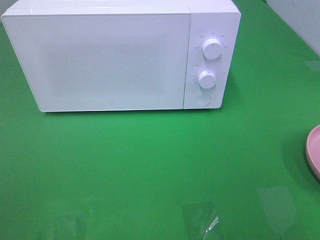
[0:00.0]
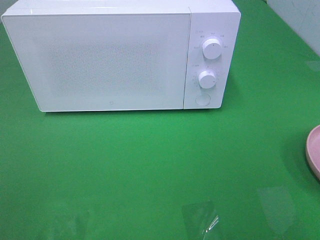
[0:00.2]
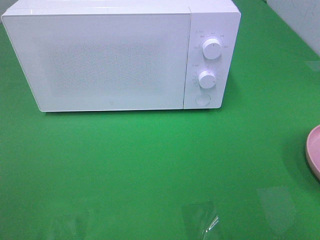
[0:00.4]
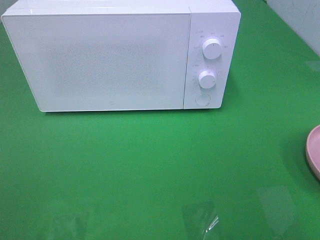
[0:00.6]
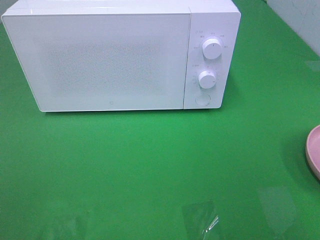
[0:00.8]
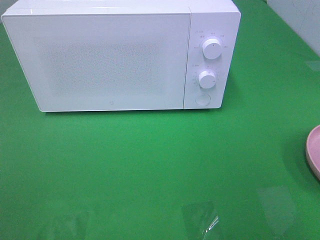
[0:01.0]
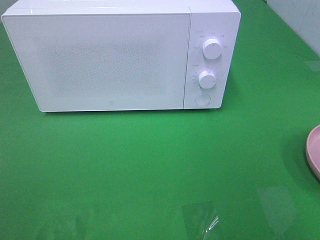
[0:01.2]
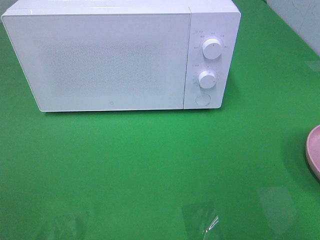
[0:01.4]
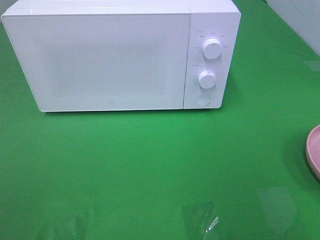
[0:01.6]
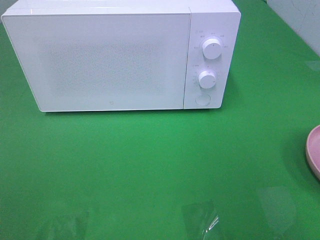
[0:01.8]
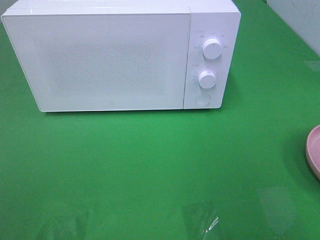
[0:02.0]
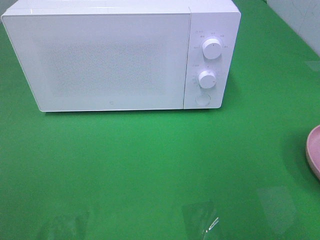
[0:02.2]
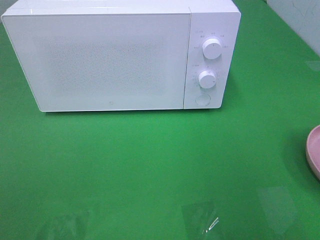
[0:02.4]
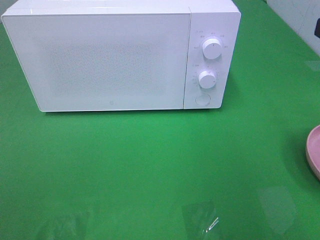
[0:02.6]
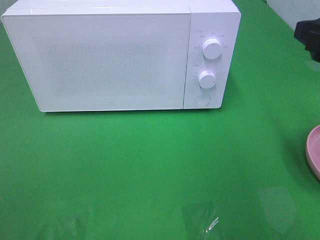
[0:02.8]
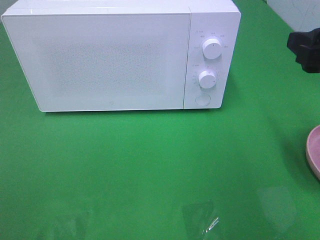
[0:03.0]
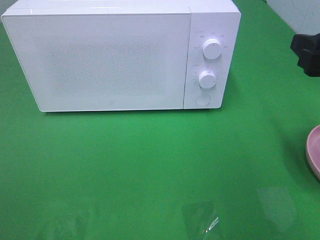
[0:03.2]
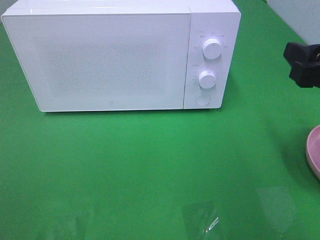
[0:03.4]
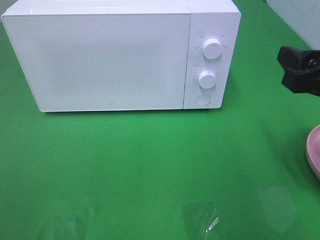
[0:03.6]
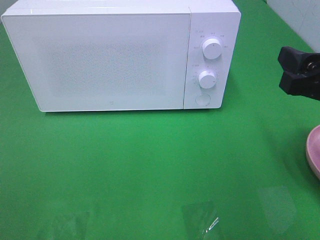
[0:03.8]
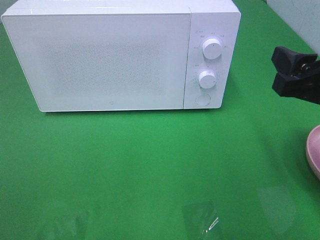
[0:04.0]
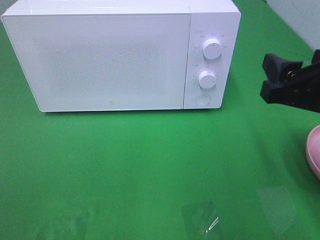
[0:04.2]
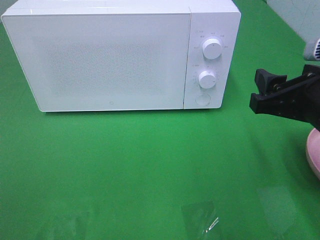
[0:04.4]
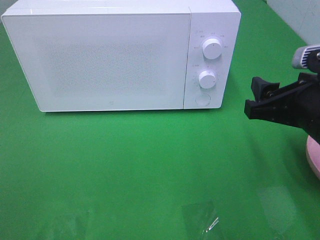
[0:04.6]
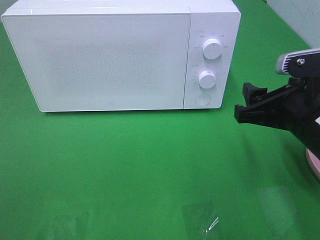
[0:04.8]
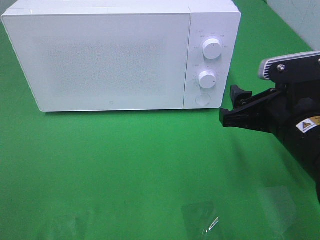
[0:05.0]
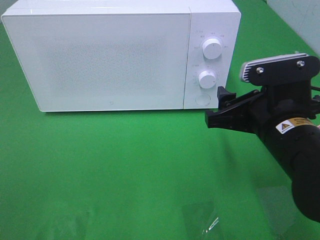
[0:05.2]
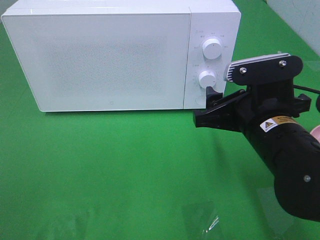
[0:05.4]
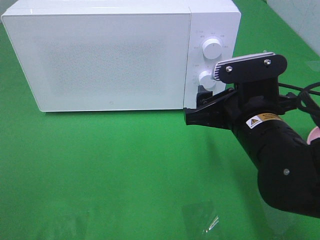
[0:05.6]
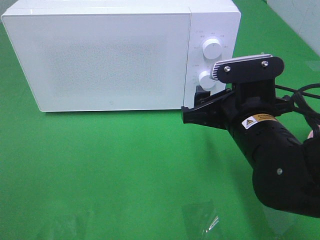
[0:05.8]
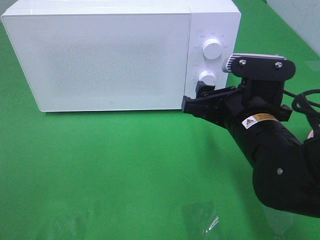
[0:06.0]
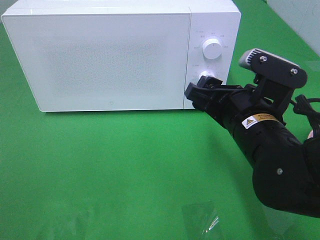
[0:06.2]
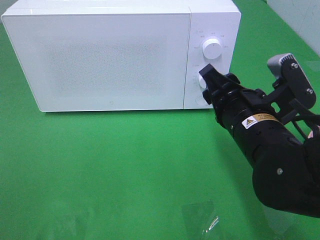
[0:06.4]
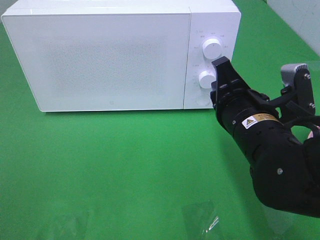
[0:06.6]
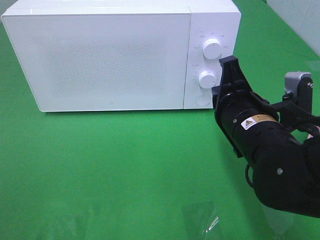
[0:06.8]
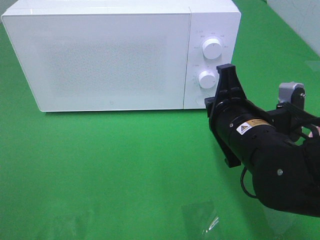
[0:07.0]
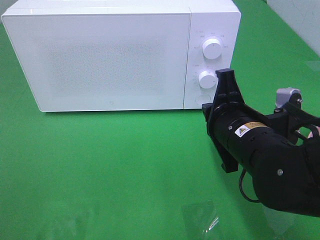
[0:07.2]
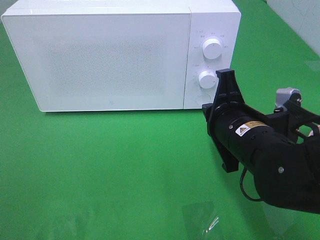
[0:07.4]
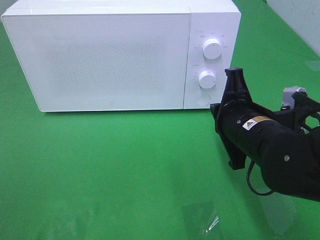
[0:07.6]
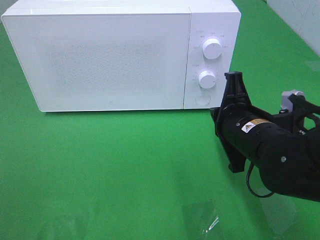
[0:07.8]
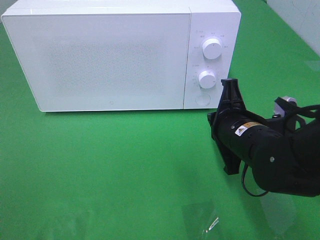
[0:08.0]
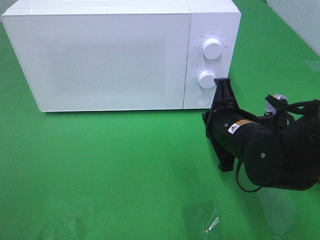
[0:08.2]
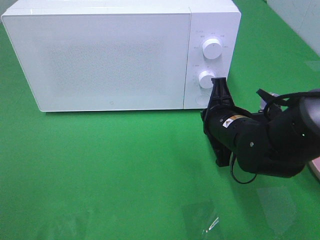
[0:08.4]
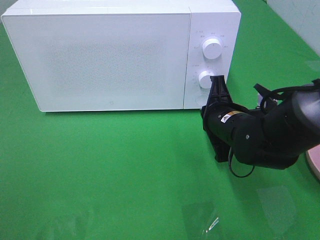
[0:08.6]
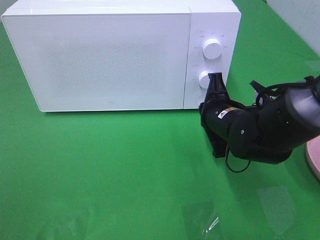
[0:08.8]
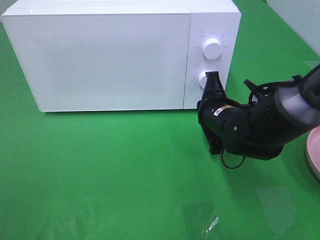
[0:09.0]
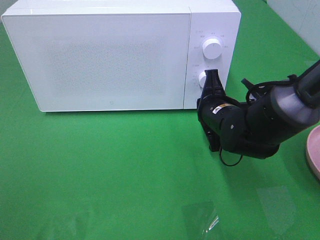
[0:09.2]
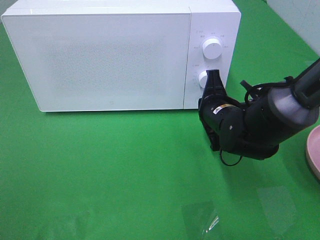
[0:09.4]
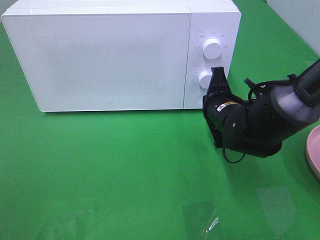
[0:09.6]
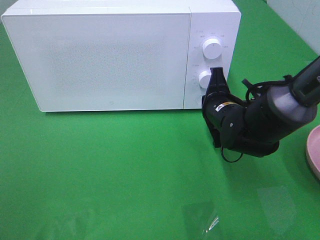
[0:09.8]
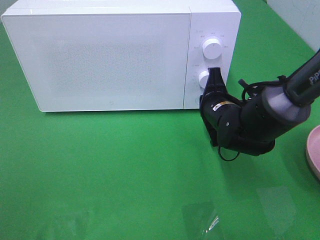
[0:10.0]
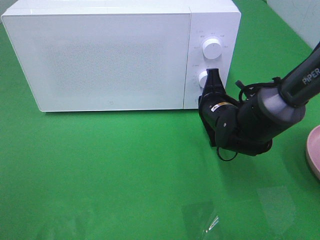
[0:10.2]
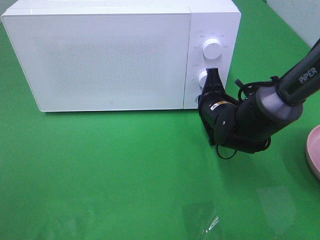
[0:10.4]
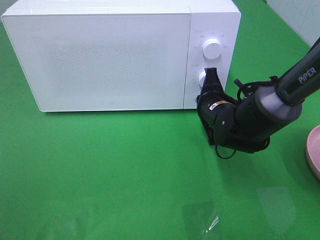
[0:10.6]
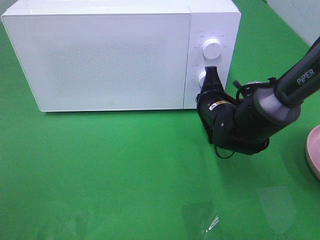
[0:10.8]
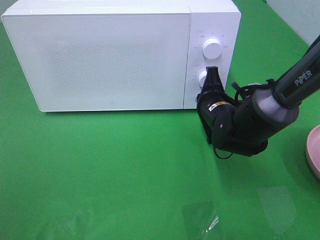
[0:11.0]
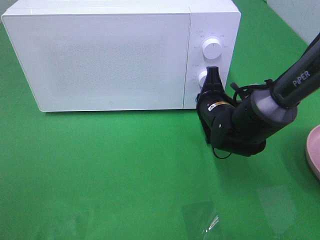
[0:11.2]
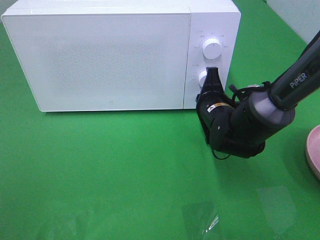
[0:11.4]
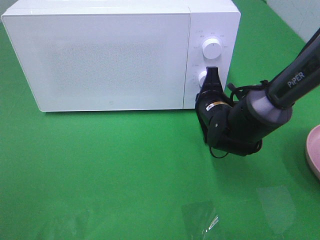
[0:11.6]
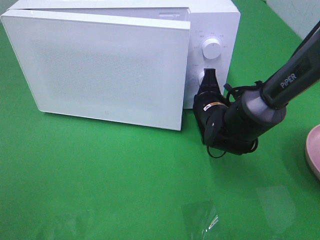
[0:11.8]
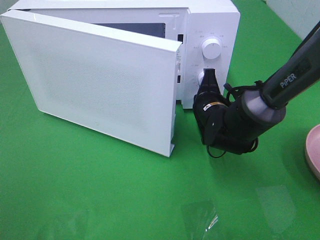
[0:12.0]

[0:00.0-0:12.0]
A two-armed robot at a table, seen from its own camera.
Task of the whole recording: Heat the burger.
0:01.6 to 0:03.0: The right gripper moves forward and downward, approximately 15 cm.
0:03.0 to 0:04.4: The right gripper shifts roughly 5 cm downward.
0:04.4 to 0:06.0: The right gripper shifts approximately 10 cm to the left.
0:06.0 to 0:07.6: The right gripper closes.
0:07.6 to 0:09.0: The right gripper heads forward and downward, covering roughly 10 cm.
0:09.0 to 0:12.0: The grippers make only small movements.

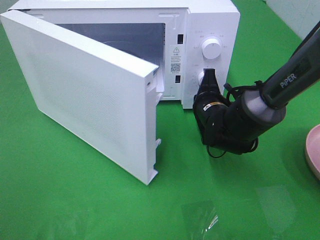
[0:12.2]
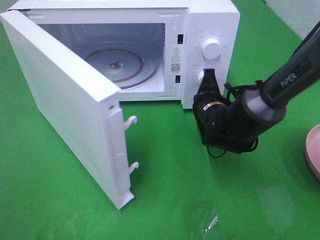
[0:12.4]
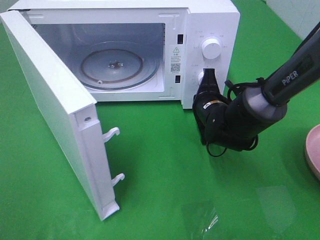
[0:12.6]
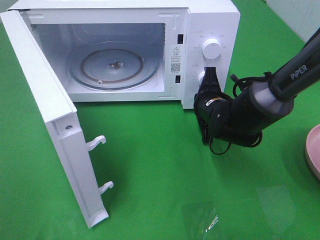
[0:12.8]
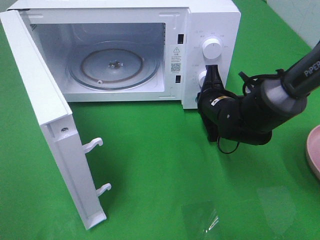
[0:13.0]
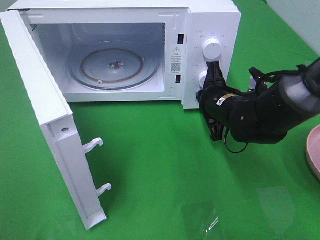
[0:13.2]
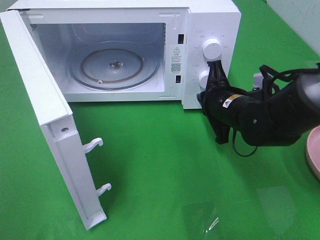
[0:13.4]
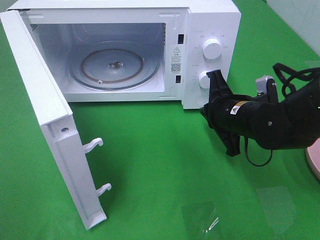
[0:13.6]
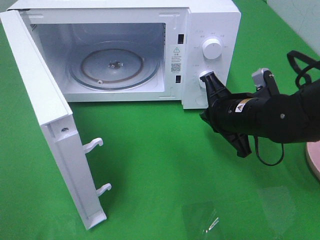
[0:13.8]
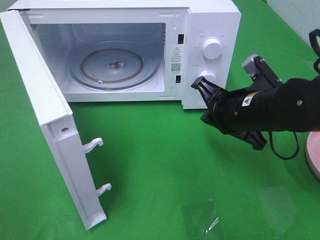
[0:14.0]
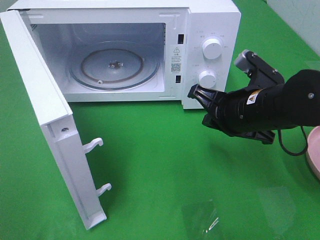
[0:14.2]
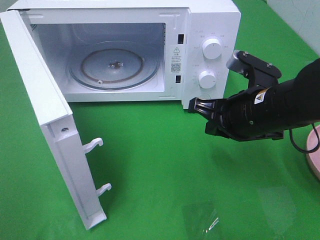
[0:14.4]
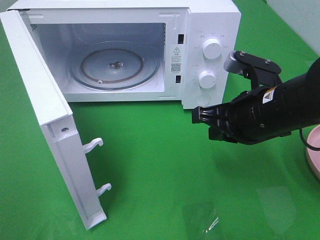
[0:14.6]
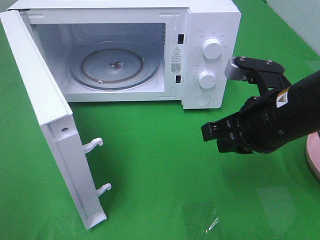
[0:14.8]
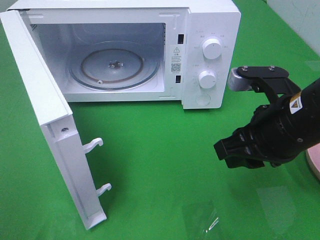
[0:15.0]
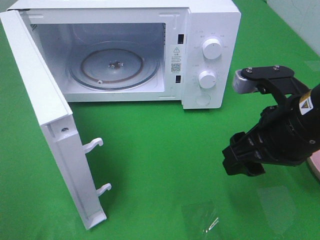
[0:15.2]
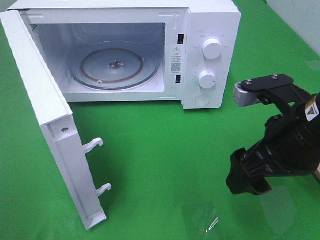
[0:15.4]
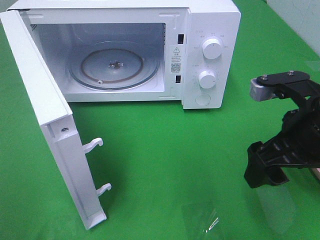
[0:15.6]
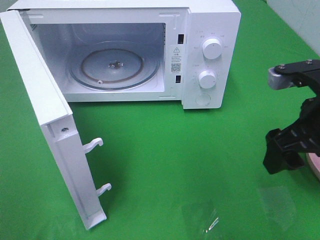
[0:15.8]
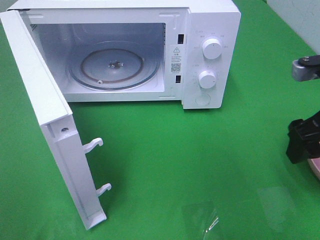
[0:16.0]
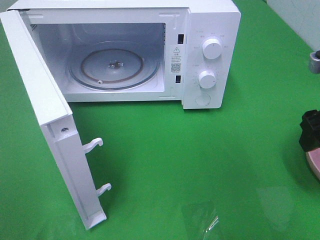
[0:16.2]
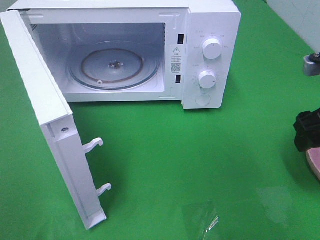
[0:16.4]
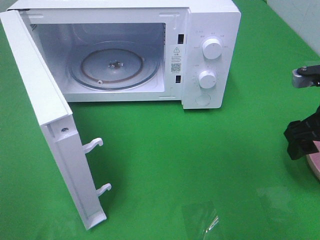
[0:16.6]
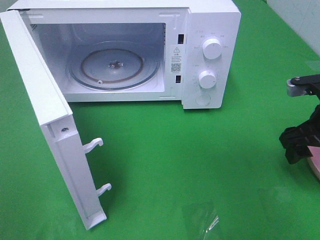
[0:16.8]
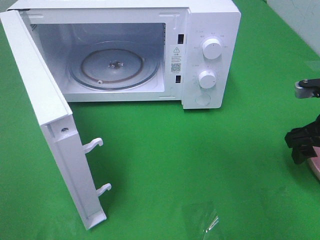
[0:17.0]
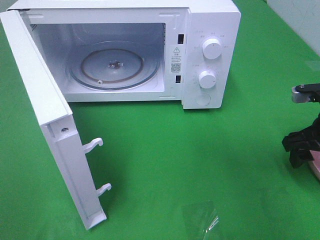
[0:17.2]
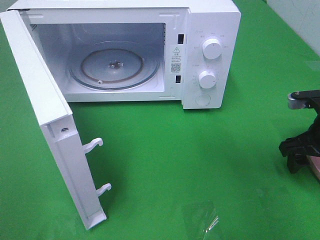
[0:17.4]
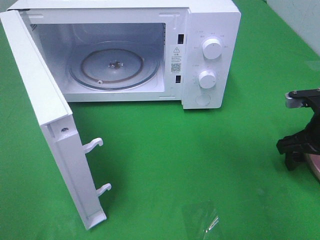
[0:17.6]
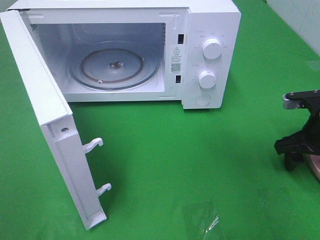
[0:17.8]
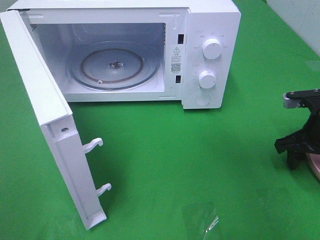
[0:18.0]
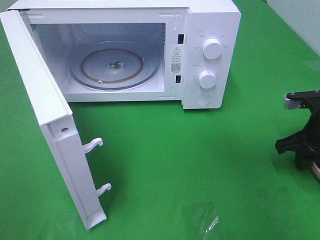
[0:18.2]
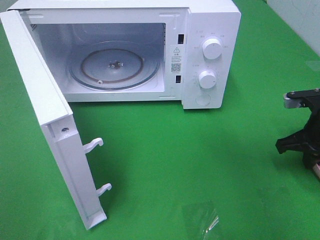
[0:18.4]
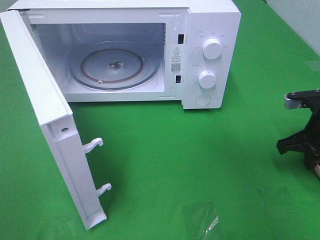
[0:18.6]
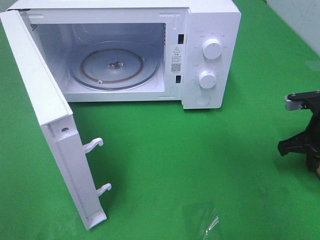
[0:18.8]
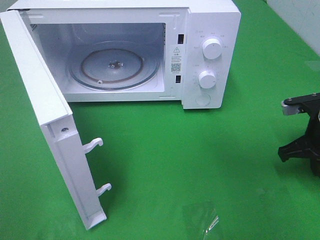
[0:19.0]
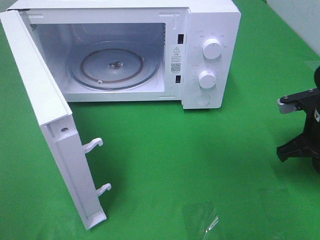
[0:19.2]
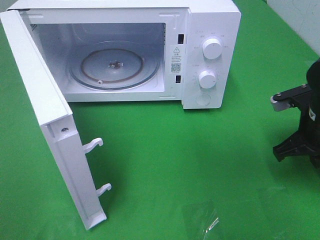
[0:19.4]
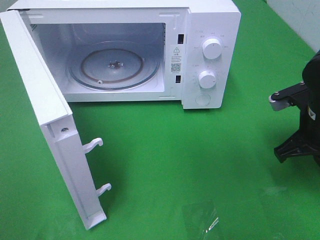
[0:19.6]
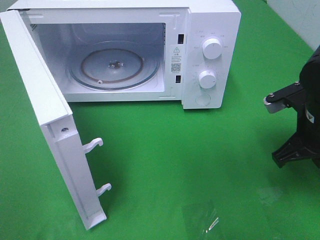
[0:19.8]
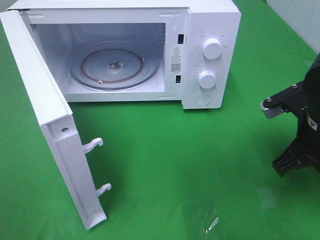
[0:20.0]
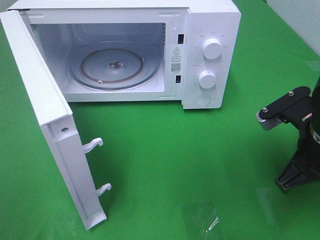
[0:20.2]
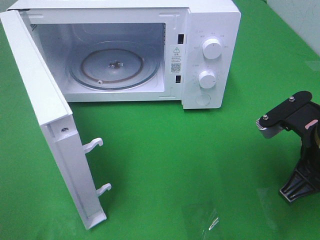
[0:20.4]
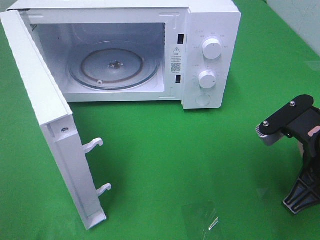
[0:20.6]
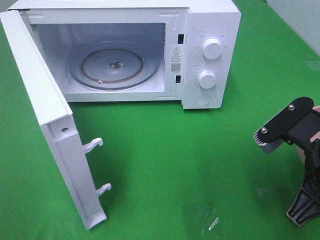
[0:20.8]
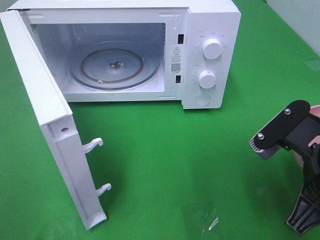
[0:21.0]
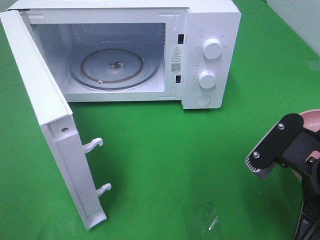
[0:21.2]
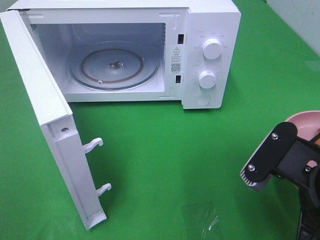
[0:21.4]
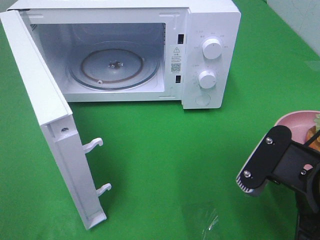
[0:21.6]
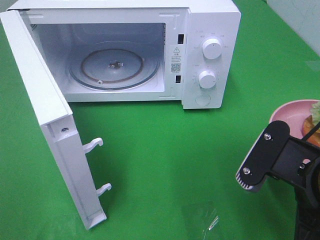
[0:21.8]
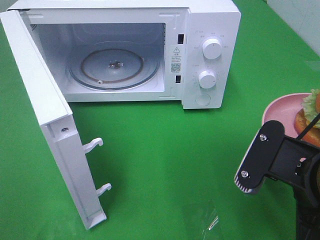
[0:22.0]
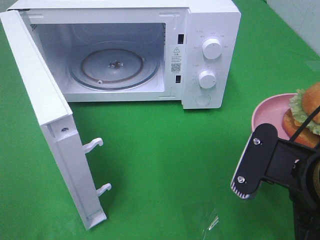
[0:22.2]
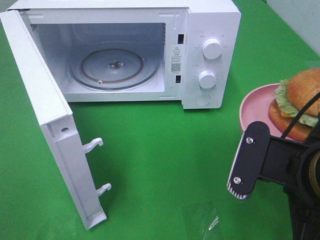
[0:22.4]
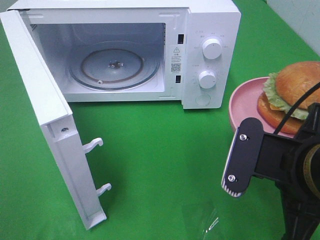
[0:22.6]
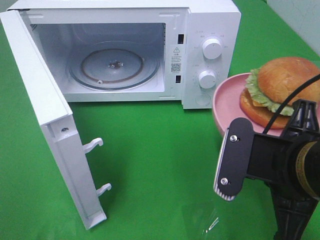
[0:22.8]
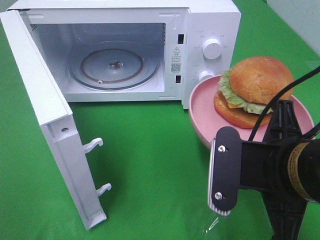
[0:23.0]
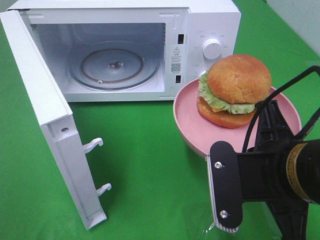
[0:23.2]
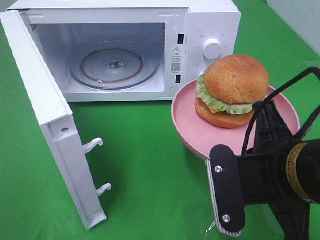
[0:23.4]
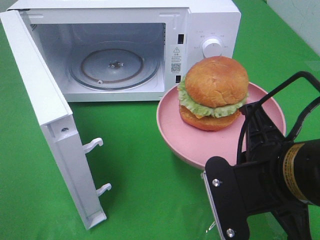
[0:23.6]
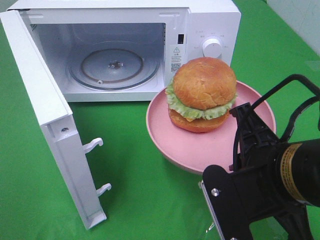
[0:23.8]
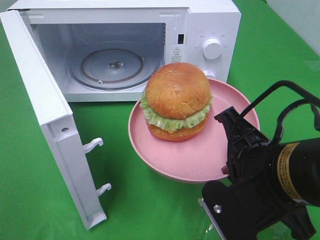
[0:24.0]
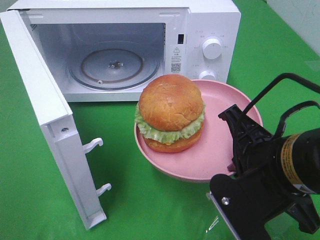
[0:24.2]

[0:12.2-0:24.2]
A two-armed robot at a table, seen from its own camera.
Task of the whole recording: Heat the burger.
Step, 0:13.4 to 0:18.8: Right hand: grab the plate with the hamburger.
0:12.2 to 0:13.8: The right gripper is displaced backward and upward by about 10 cm.
0:13.8 to 0:15.2: The right gripper heads backward and upward, covering about 10 cm, and opens.
0:15.2 to 0:16.6: The right gripper heads to the right and forward, covering roughly 10 cm.
0:16.6 to 0:18.2: The right gripper goes approximately 5 cm downward, and closes its fingers.
0:18.2 to 0:19.8: The right gripper shifts approximately 5 cm to the left, and closes its fingers.
0:19.8 to 0:21.2: The right gripper moves backward and to the left, about 15 cm.
